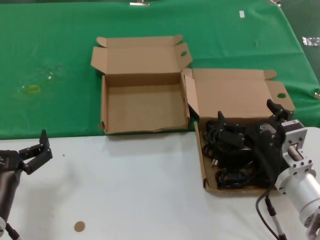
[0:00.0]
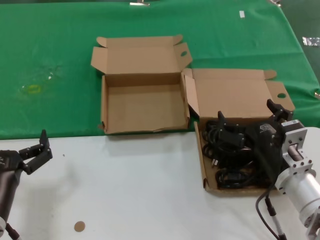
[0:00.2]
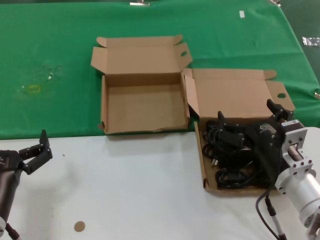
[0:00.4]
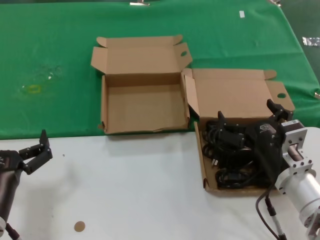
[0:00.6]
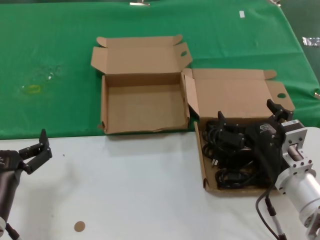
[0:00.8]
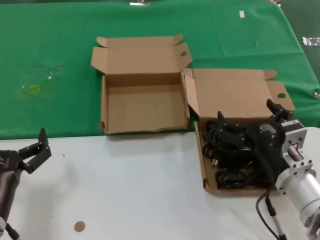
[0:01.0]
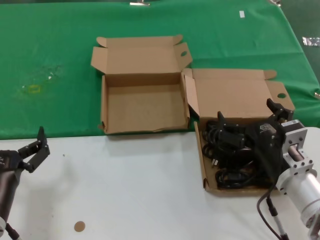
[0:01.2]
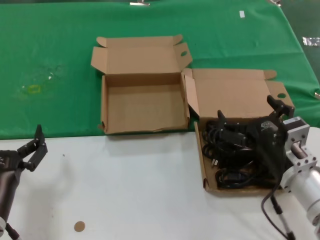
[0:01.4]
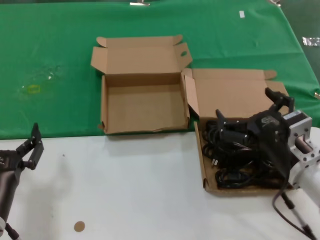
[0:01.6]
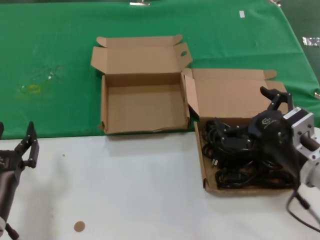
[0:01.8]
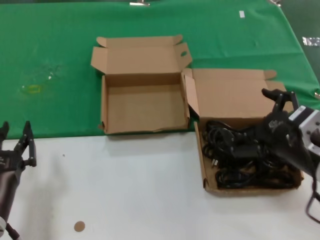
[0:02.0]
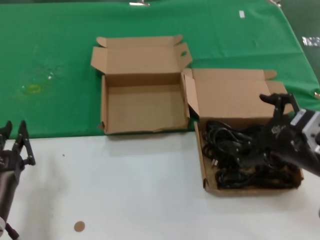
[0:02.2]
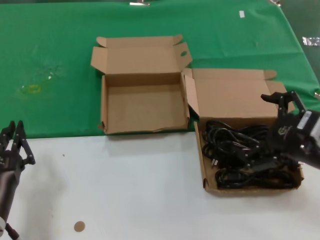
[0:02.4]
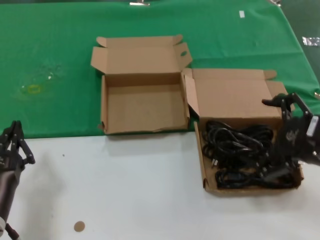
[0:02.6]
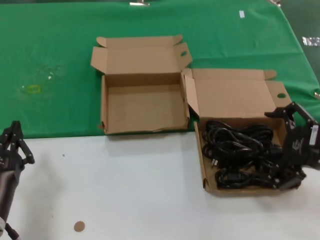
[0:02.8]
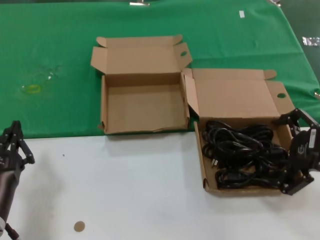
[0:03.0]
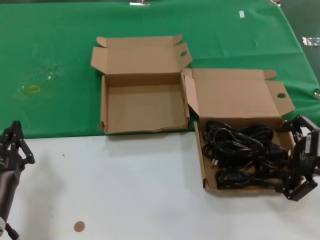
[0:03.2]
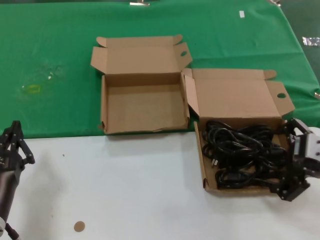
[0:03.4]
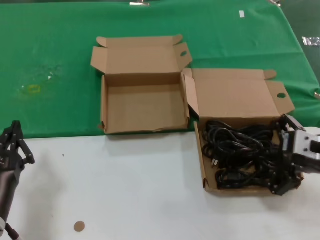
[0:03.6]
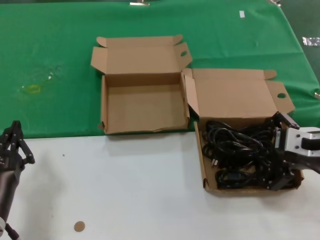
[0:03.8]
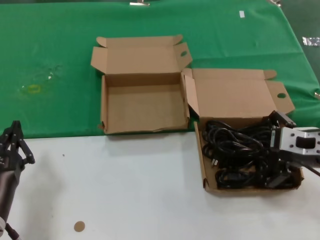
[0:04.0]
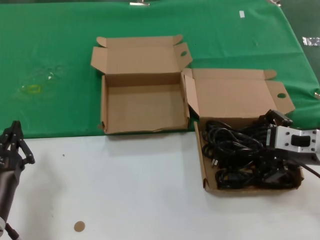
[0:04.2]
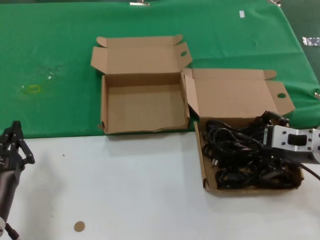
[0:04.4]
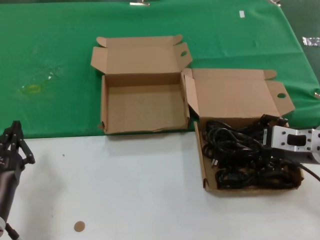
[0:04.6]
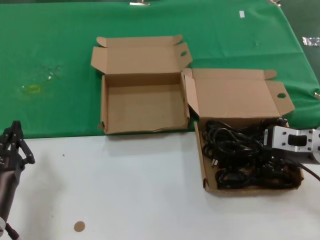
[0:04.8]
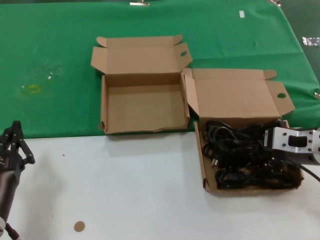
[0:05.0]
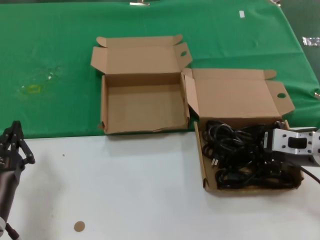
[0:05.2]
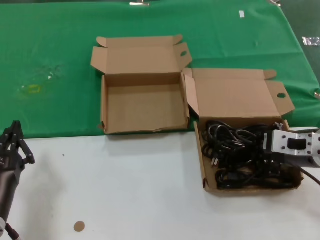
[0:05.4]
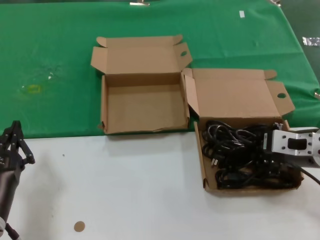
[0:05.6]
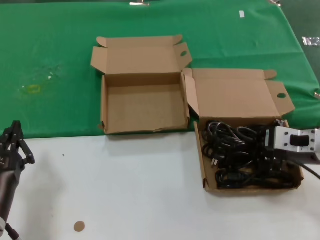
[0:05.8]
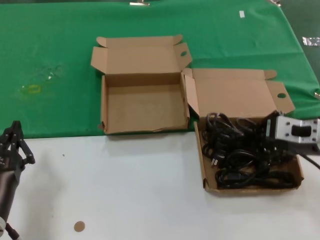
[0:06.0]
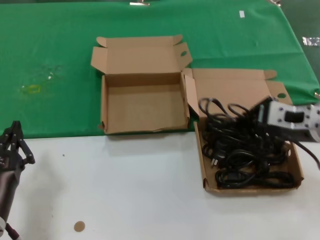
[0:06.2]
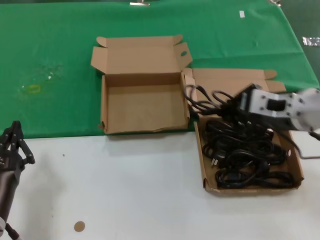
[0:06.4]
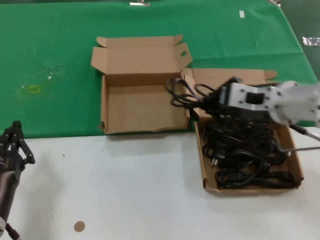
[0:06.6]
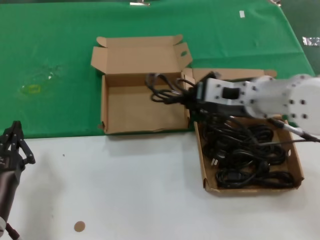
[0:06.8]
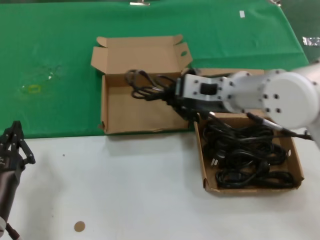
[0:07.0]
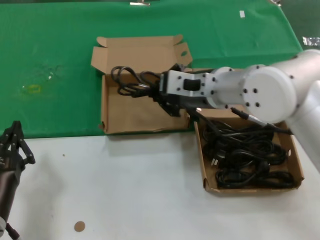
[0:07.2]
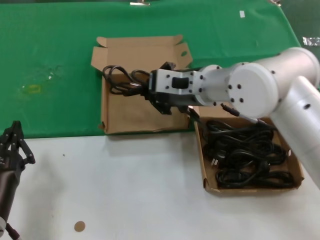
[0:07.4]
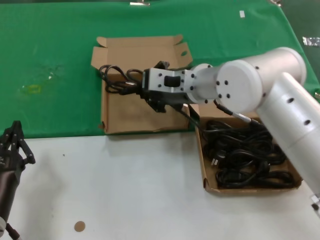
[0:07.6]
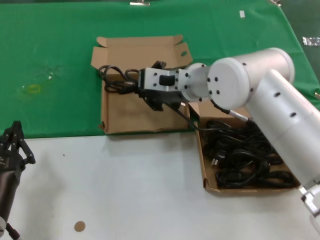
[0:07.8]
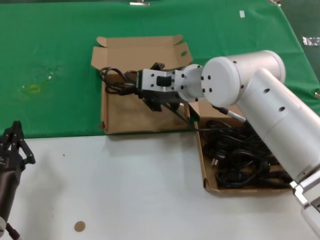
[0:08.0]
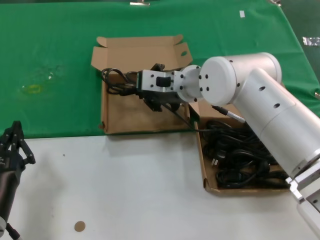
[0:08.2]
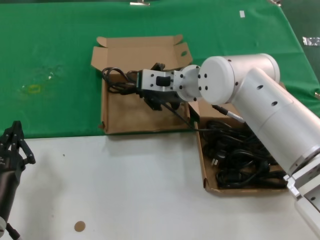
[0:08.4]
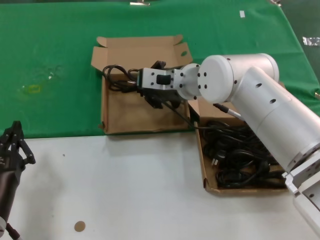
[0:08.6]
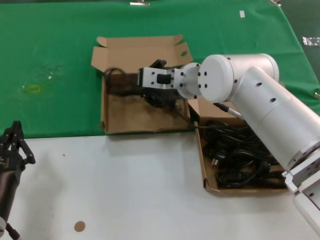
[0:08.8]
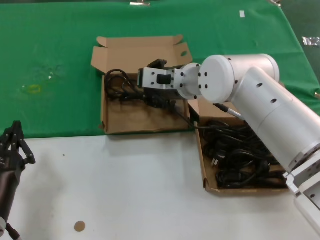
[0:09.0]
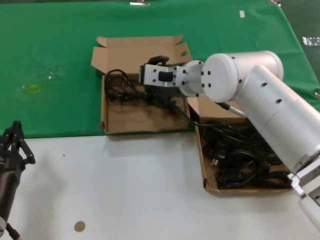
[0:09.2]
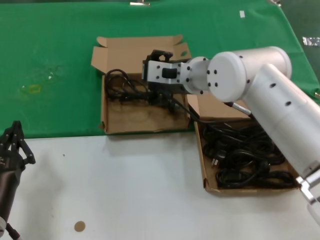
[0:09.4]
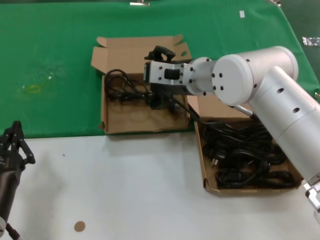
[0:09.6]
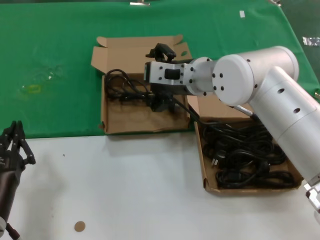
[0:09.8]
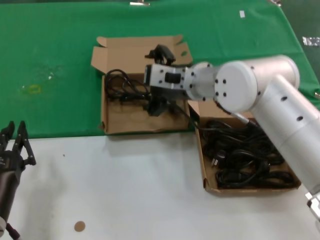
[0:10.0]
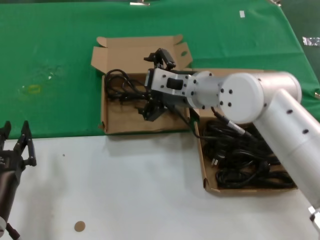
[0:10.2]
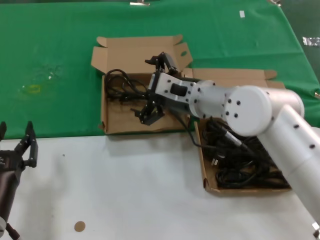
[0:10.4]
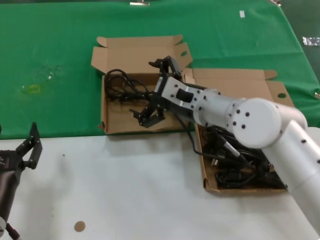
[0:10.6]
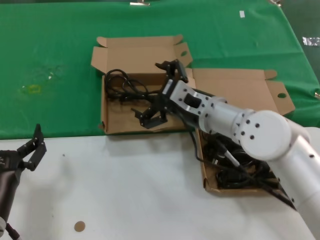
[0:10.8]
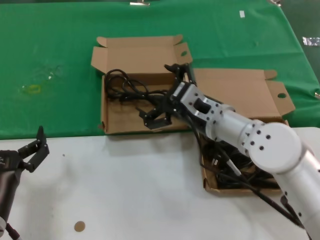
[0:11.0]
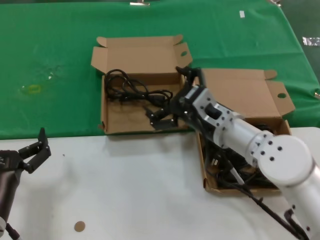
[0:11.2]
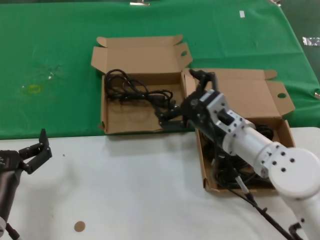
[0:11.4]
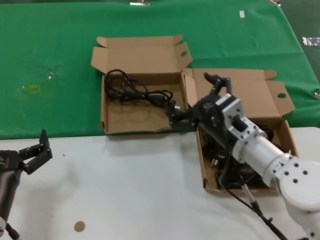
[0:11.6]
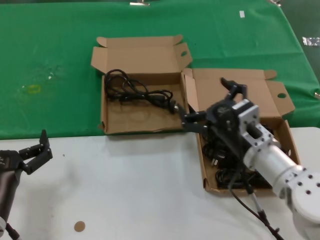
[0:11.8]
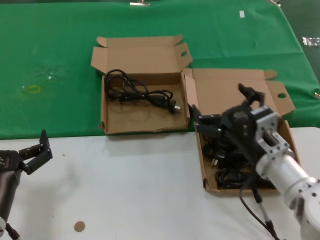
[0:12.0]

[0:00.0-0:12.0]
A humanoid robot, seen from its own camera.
Task of the whole recording: take the parts from the box containing them and put them into an empty box.
Step, 0:00.0 to 0:05.6: Grasp the data cable.
Step, 0:05.8 to 0:09.8: Place the data cable in the another box.
0:00.0 to 0:01.6: There are only small adjustments of the hands.
0:01.6 to 0:03.0: The right hand travels upward and to the right by roughly 15 cm.
0:03.0 to 0:04.4: The right hand shifts about 5 cm forward.
0:04.4 to 0:06.0: The hands move only a little.
0:06.0 to 0:07.6: The right hand is displaced to the left and forward by approximately 25 cm.
0:07.6 to 0:09.0: The right hand is displaced forward by approximately 5 cm.
0:09.0 to 0:10.4: The right hand moves backward, approximately 5 cm.
0:10.4 to 0:12.0: The right hand shifts about 20 cm backward, downward and to the right.

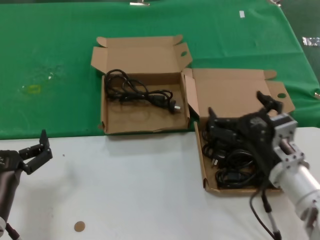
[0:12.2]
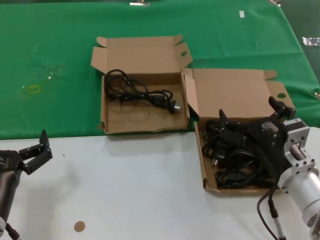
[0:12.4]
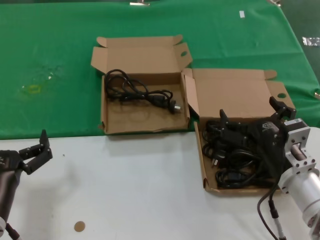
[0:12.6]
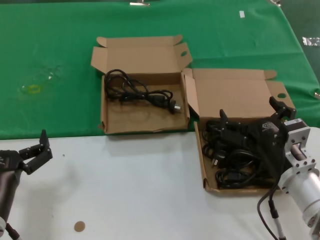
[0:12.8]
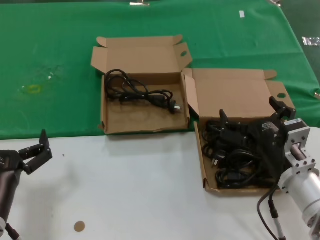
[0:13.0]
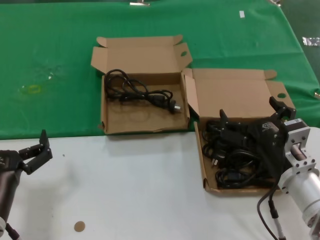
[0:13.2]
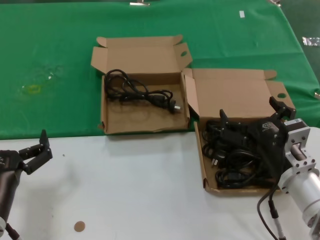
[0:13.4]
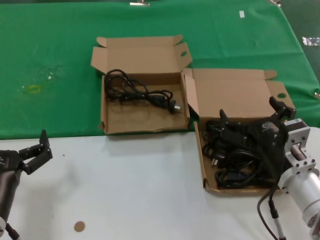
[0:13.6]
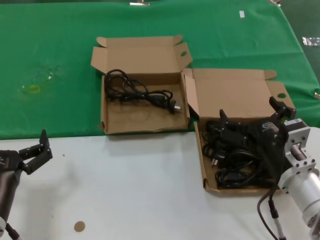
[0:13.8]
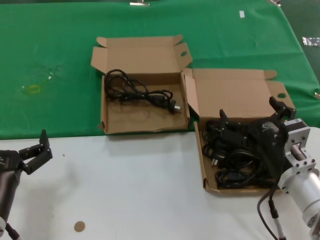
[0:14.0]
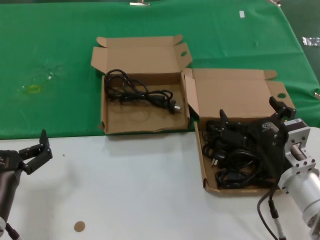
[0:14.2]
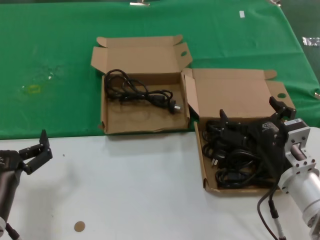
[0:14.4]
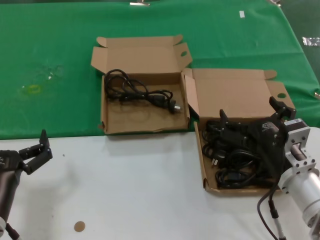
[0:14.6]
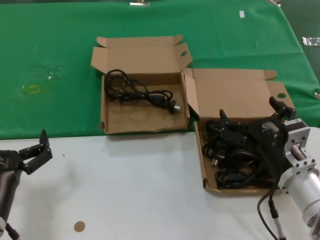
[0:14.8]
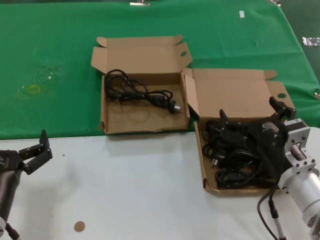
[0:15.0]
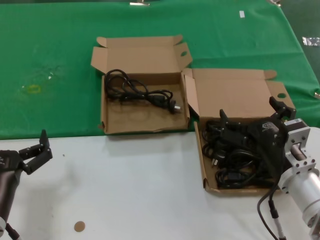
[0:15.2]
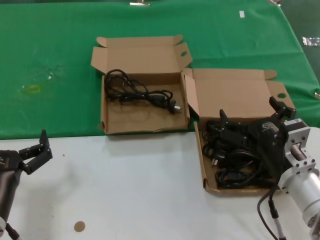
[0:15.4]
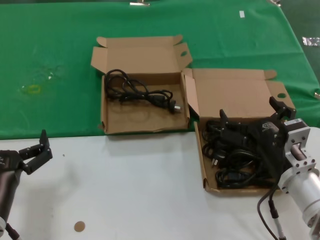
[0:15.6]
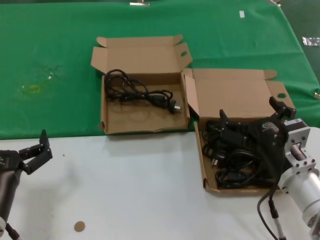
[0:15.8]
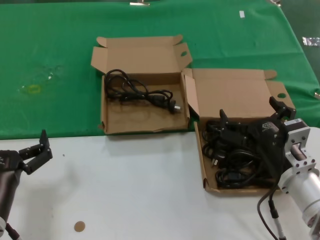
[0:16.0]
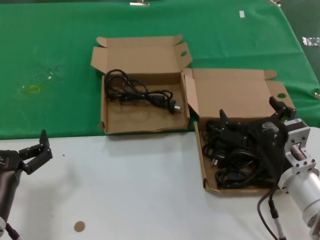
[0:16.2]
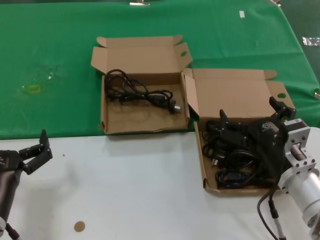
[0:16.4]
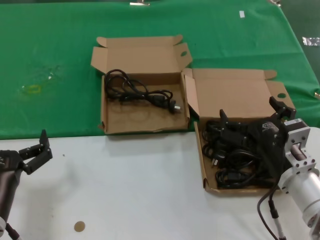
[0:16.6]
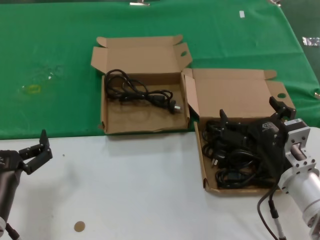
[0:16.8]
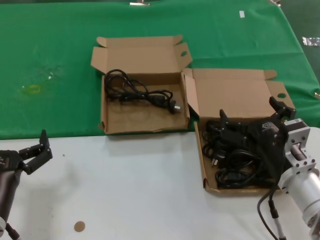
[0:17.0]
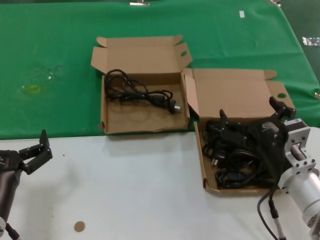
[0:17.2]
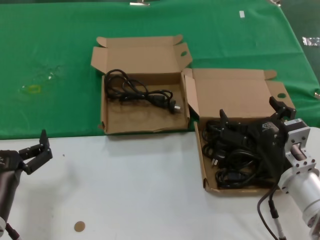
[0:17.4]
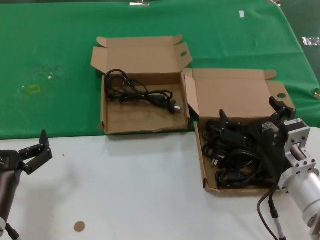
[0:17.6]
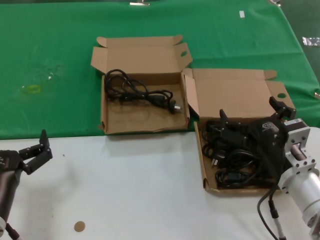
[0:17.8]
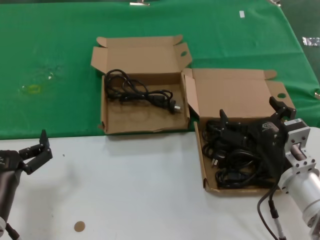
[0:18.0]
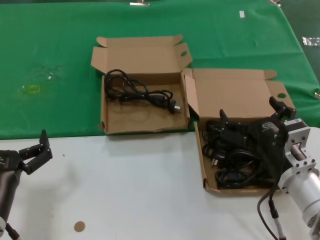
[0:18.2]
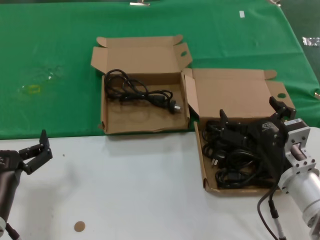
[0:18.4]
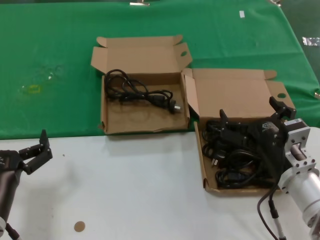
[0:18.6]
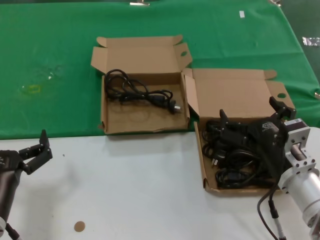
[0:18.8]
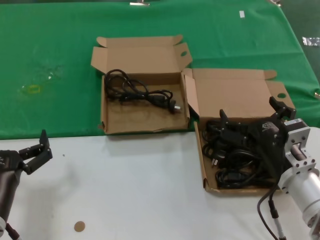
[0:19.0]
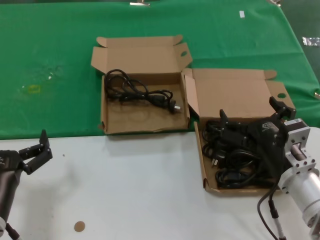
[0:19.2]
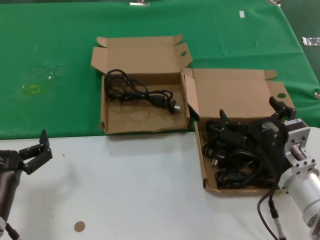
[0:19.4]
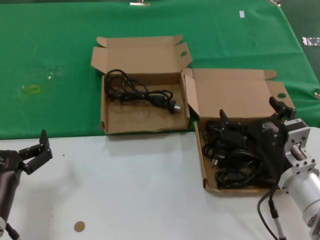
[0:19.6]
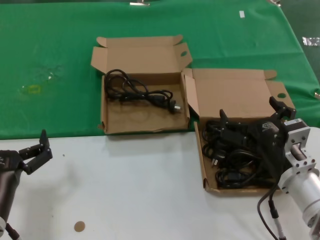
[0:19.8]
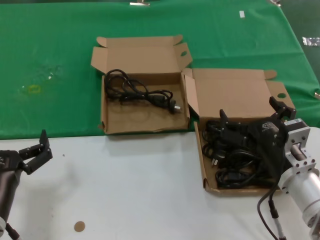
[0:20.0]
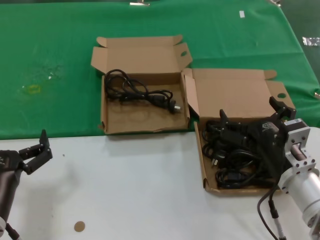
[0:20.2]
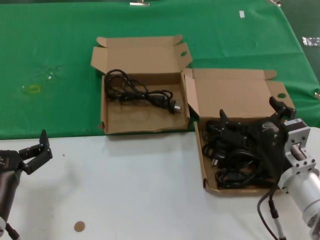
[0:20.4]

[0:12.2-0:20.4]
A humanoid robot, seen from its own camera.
Task of the whole recording: take the parts from the box containing them and put them into an empty box.
0:12.2 to 0:13.8: The hands stay close to where they were, moving slightly.
0:13.8 to 0:20.4: Neither hand changes place.

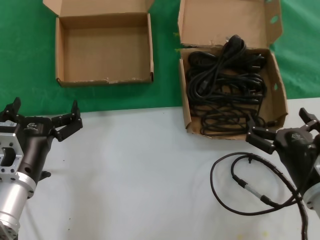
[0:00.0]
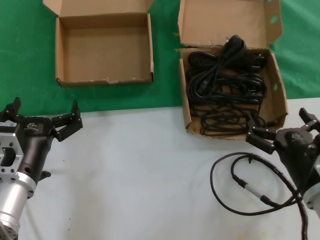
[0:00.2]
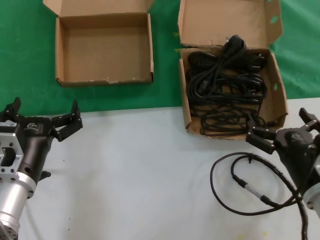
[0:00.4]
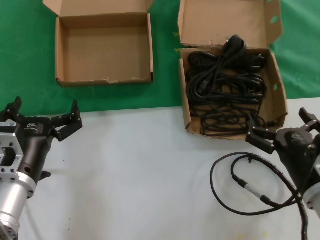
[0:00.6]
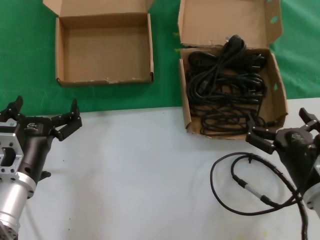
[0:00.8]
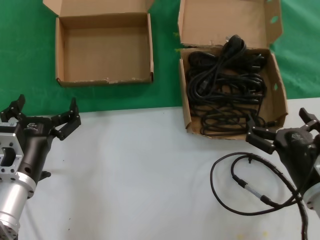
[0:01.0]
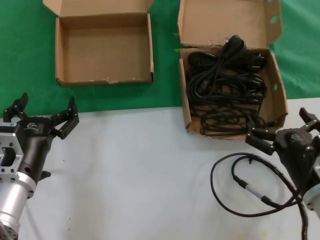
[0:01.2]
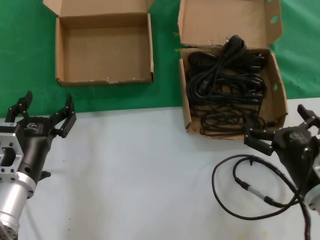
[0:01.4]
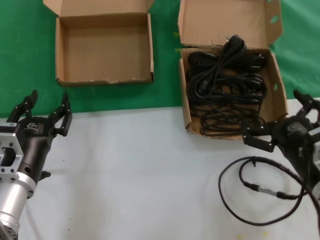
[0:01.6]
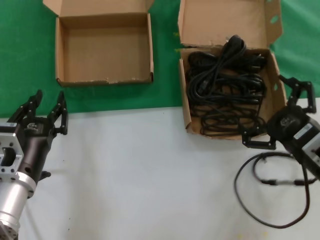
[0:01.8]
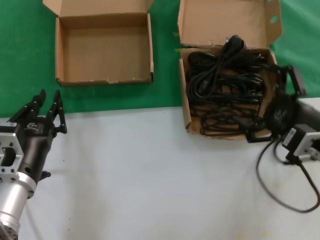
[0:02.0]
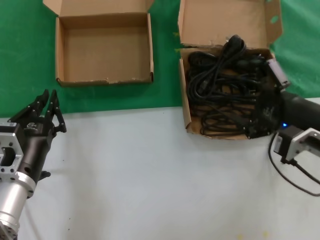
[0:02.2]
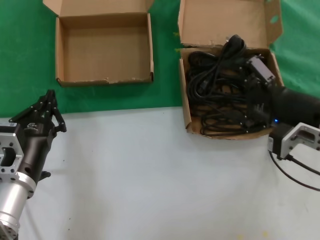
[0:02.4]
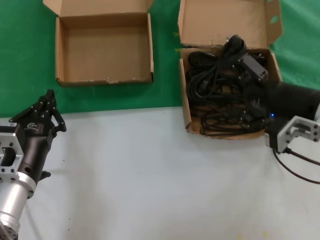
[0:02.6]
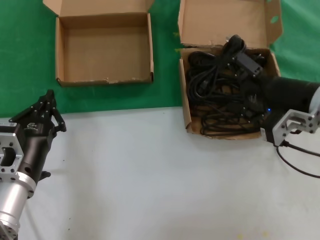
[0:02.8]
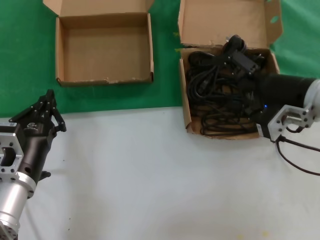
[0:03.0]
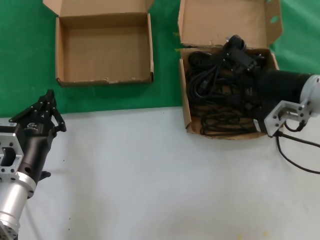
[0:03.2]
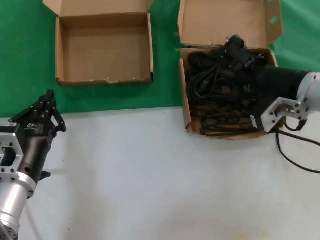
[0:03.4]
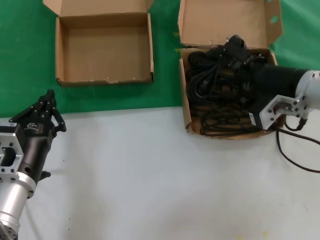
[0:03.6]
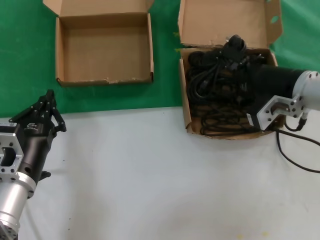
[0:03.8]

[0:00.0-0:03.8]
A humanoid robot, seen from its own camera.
Task of the whole recording: take the parts from the box containing them and put them into an empty box.
0:00.0 to 0:01.2: The two hands keep their place.
0:01.2 to 0:02.6: The right hand travels upward and forward by approximately 15 cm.
0:02.6 to 0:03.8: The right hand goes some 5 cm forward.
